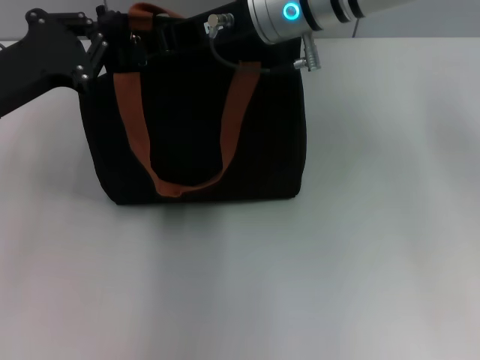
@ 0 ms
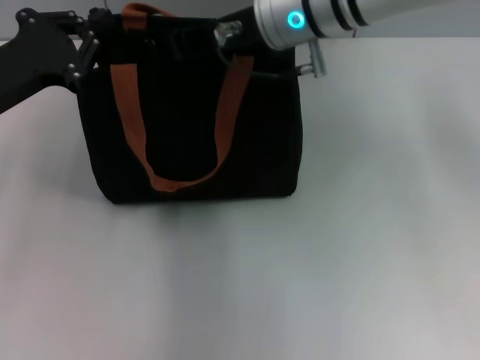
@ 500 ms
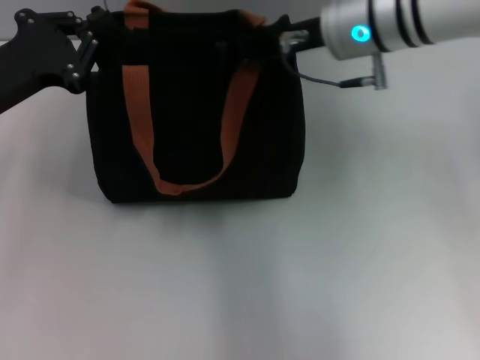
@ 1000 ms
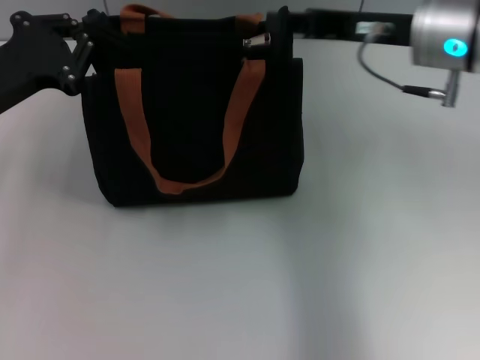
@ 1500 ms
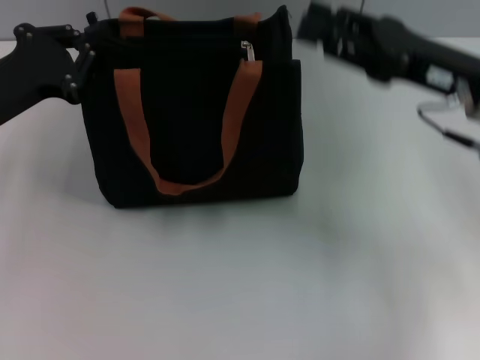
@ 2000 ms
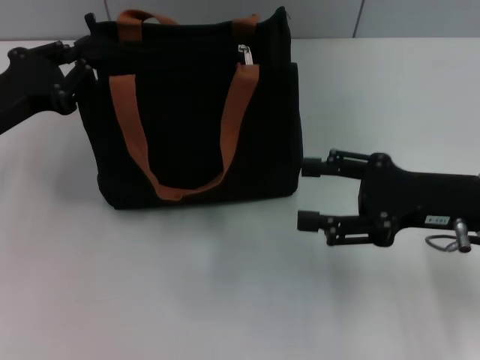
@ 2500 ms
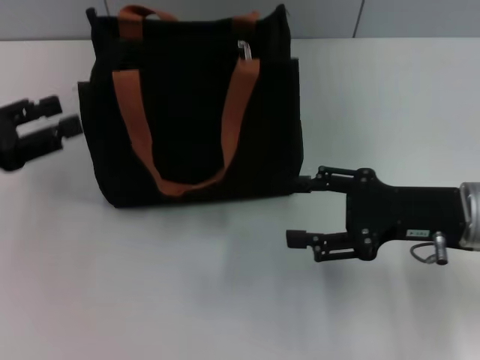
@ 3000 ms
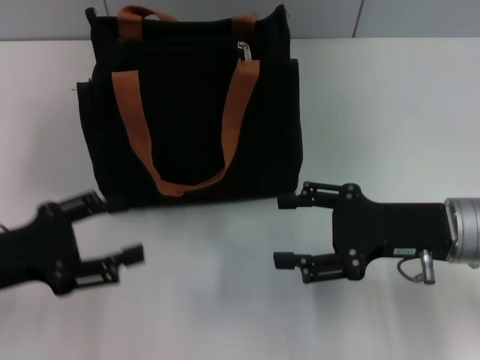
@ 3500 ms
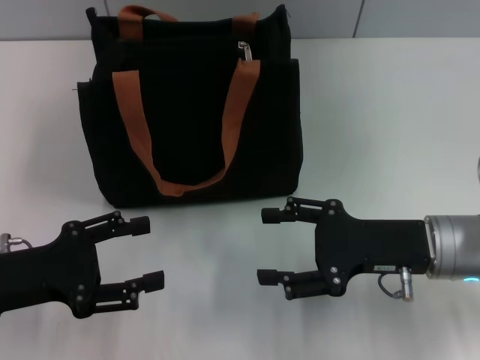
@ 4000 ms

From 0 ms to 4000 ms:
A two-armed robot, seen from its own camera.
Step, from 2000 ms to 3000 ms: Grab the zipper with your left hand.
From 0 ms to 2000 ms: The right gripper shifts some 20 cm to the right and backward.
From 2000 ms to 4000 ms: The left gripper heads backward and downward, covering approximately 10 cm, and opens up. Meanwhile the right gripper goes about 10 cm downward and backward, and opens its fingers.
